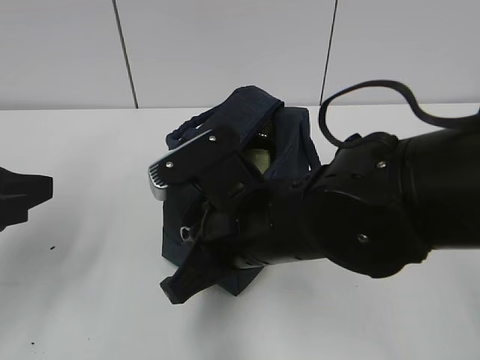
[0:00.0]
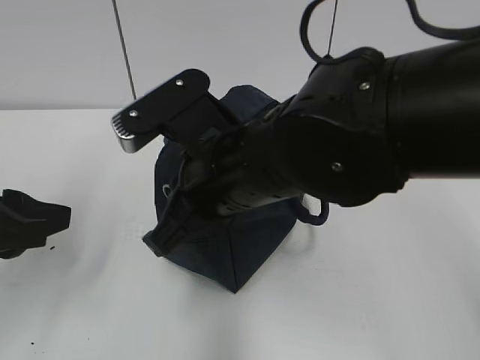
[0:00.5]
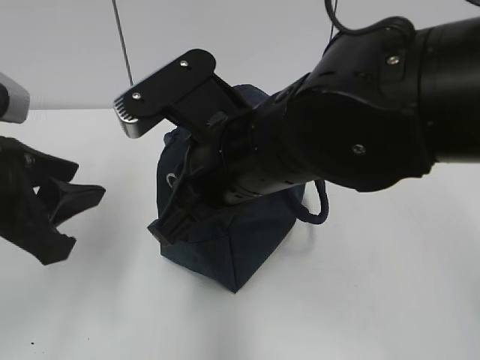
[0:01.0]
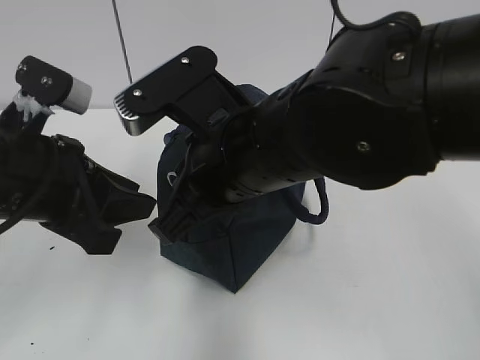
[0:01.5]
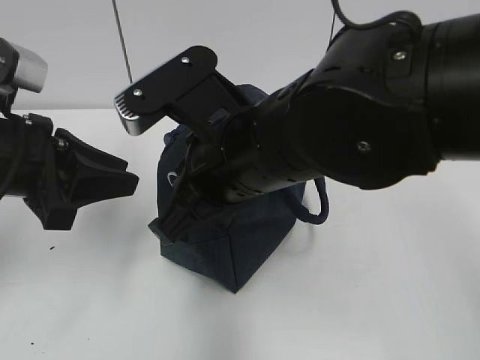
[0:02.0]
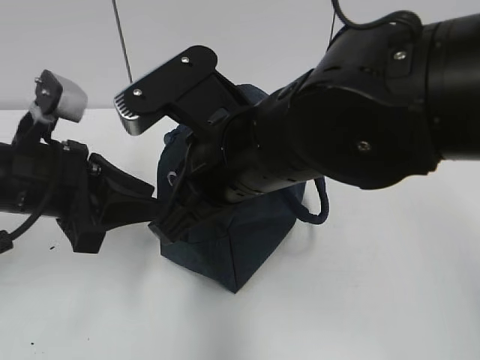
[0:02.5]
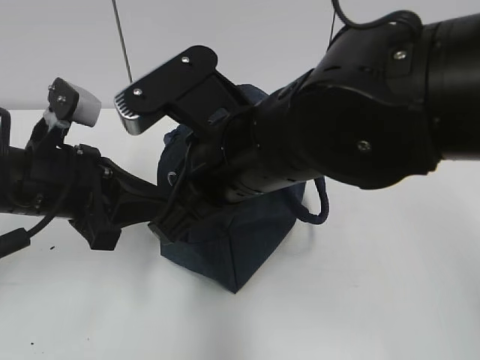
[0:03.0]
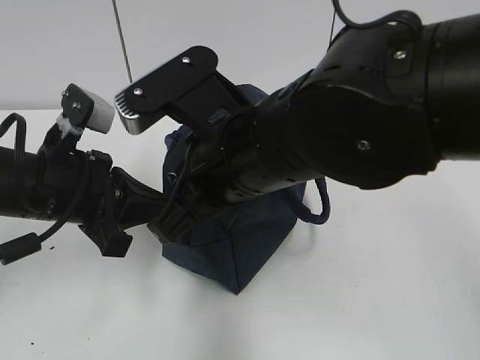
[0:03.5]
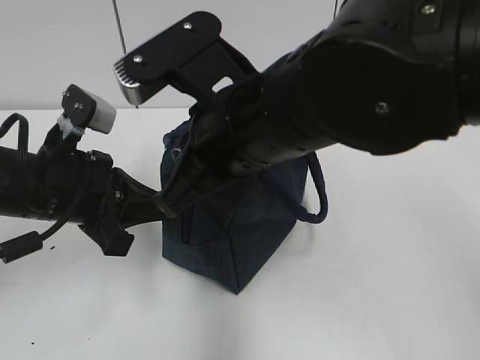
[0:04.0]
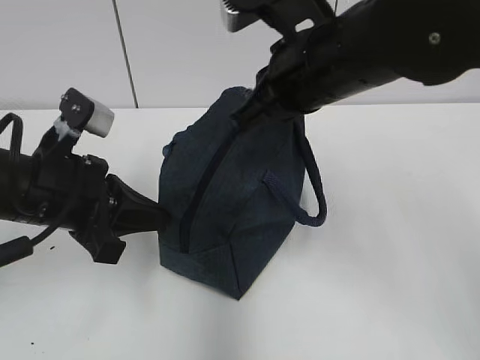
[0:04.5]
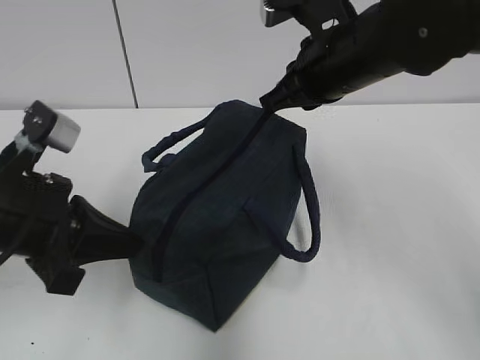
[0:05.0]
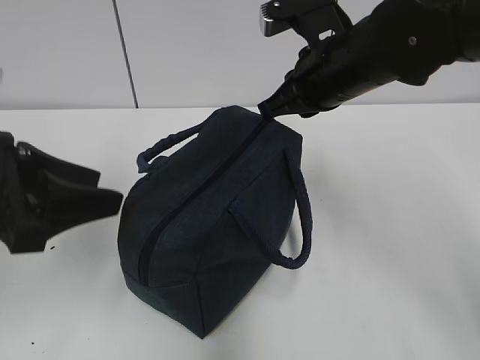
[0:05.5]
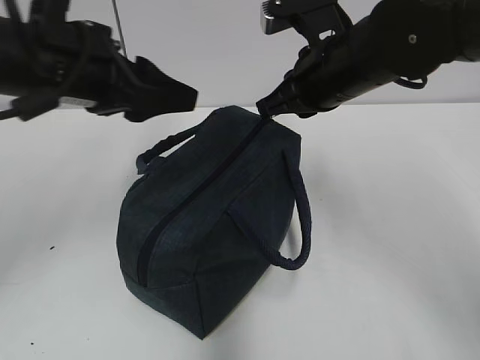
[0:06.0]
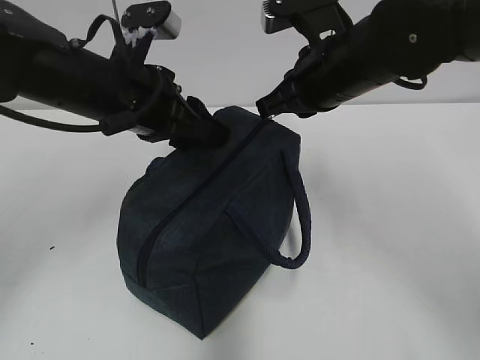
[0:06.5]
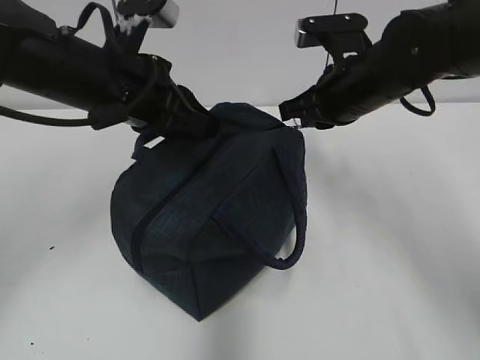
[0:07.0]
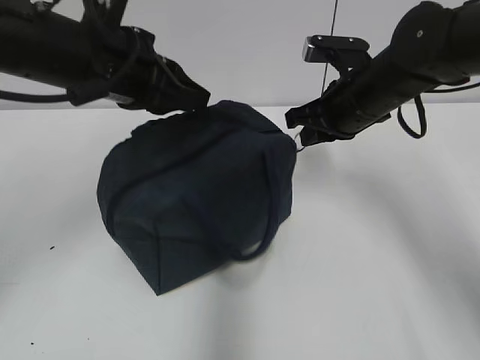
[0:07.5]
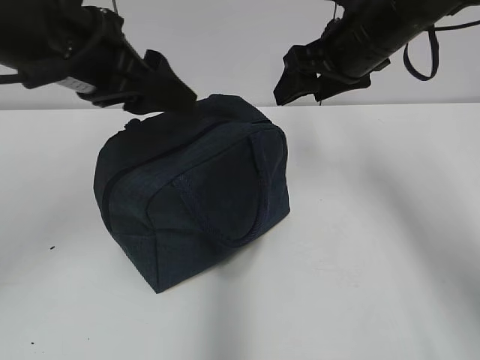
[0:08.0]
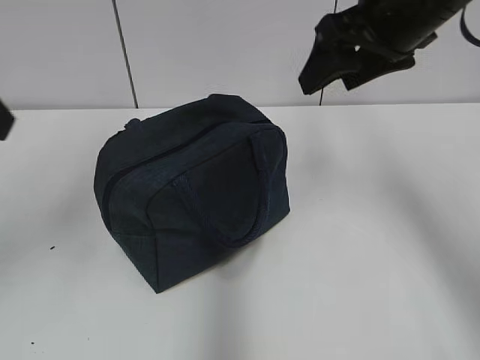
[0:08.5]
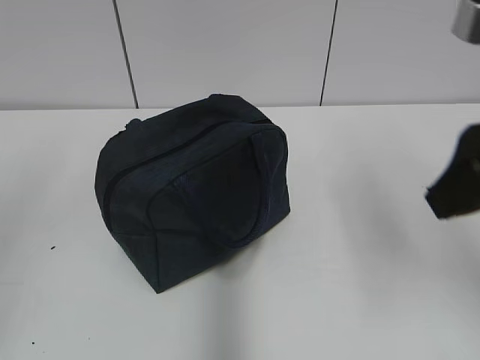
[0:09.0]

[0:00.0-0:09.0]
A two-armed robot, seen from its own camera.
0:00.0 to 0:02.0: The left gripper travels forward by about 5 cm. The right gripper travels upward by roughly 5 cm.
0:02.0 to 0:04.5: The left gripper closes. Meanwhile the right gripper moves to the right and forward, about 10 cm.
0:04.5 to 0:07.0: The right gripper heads forward, downward and to the right, covering roughly 15 cm; the left gripper shifts some 10 cm upward, forward and to the right, and opens, then closes once more.
0:07.0 to 0:09.0: The left gripper shifts some 30 cm backward and to the left, and opens, while the right gripper moves backward and upward, some 25 cm, and opens up.
